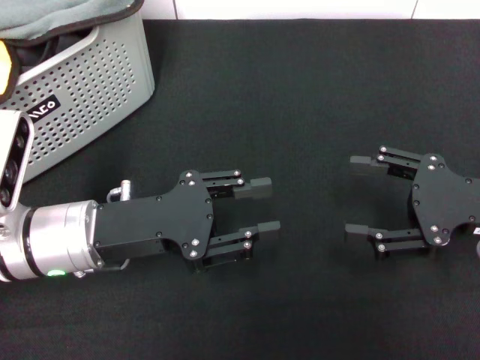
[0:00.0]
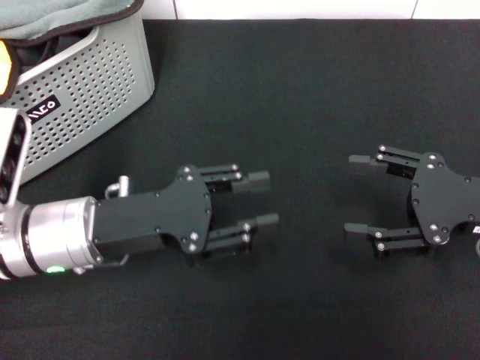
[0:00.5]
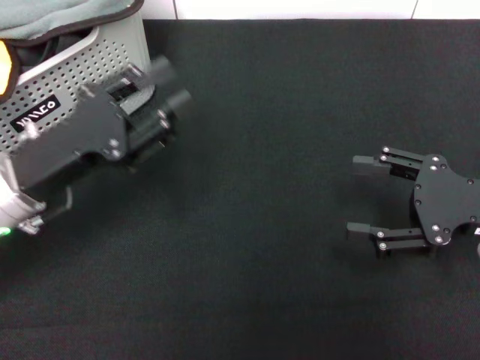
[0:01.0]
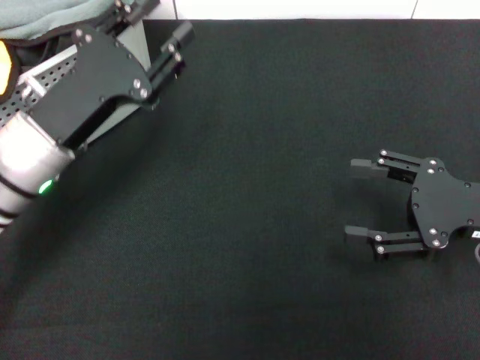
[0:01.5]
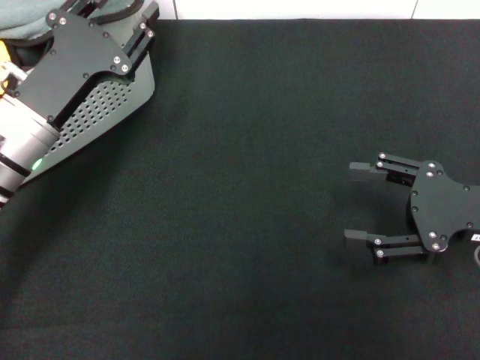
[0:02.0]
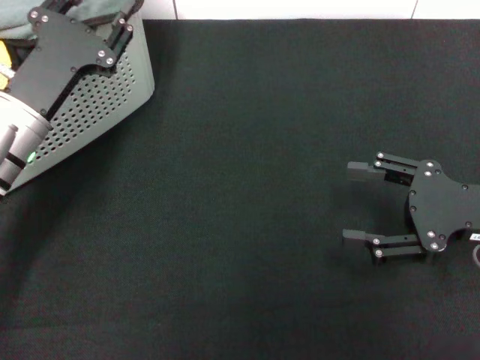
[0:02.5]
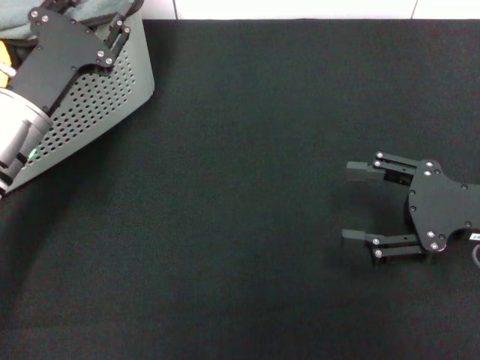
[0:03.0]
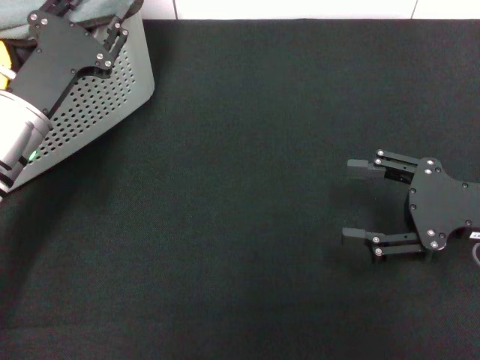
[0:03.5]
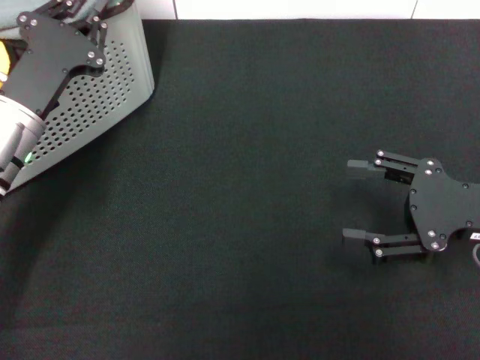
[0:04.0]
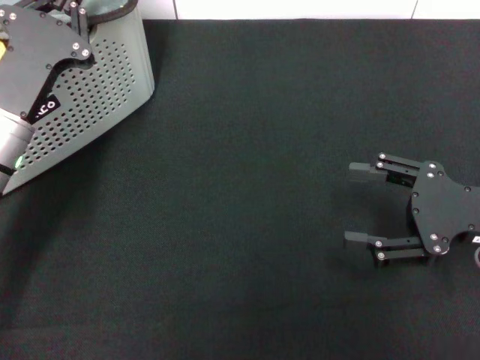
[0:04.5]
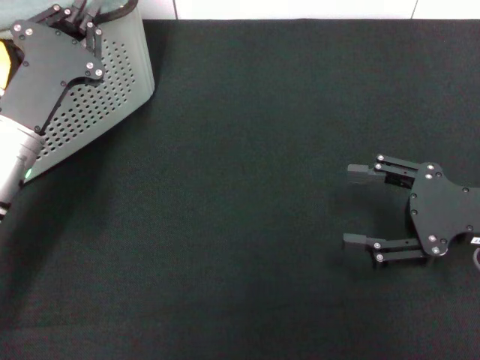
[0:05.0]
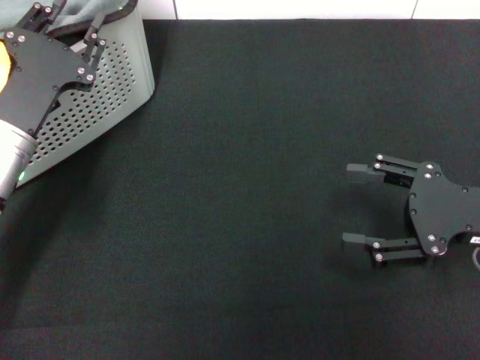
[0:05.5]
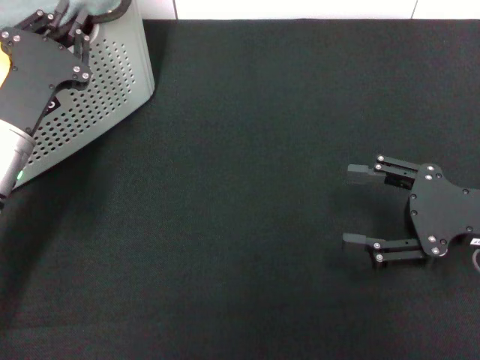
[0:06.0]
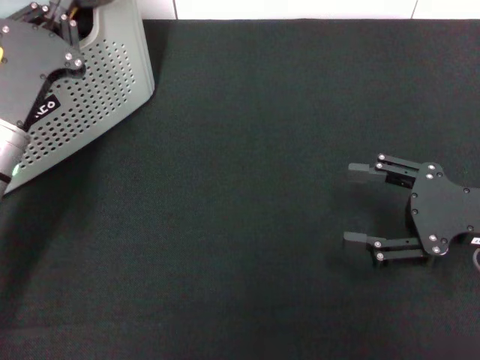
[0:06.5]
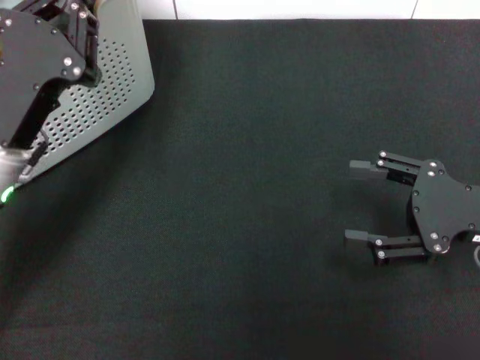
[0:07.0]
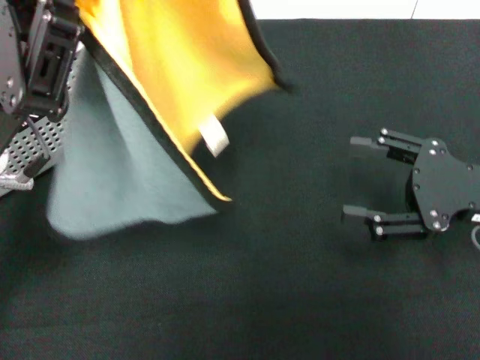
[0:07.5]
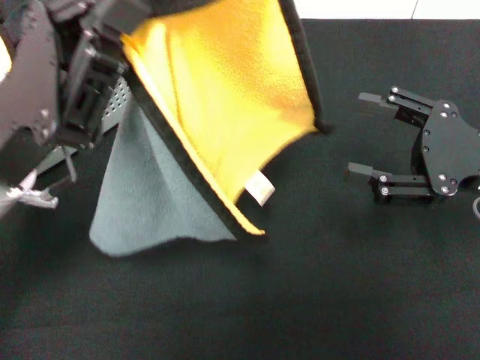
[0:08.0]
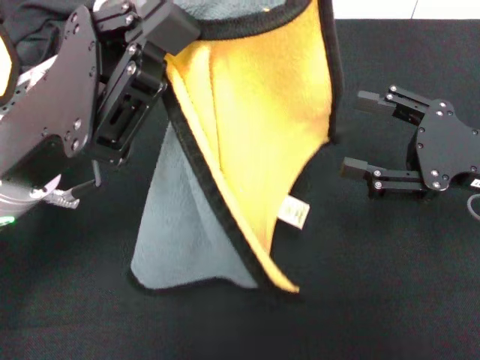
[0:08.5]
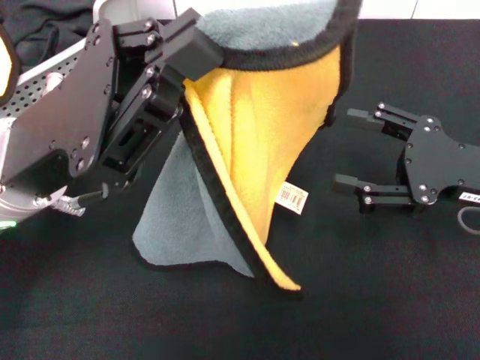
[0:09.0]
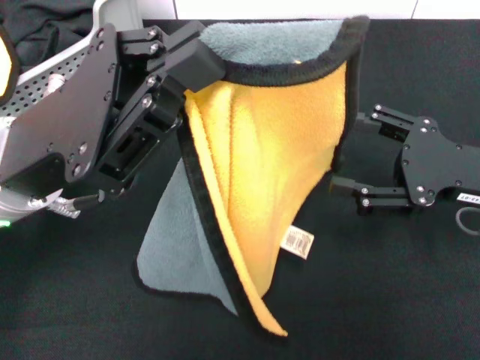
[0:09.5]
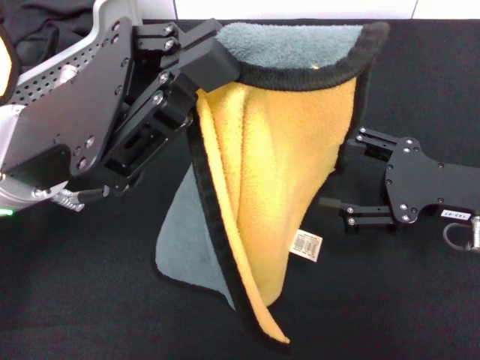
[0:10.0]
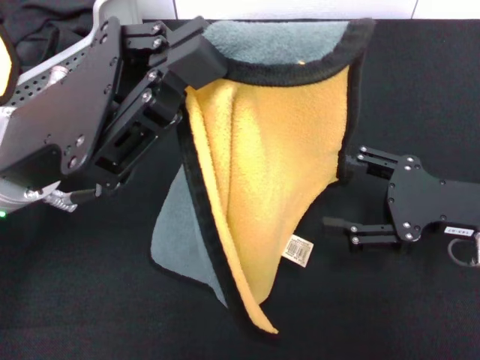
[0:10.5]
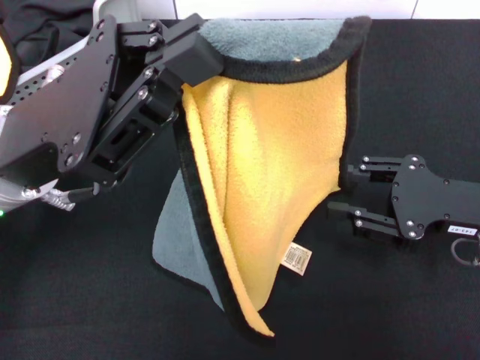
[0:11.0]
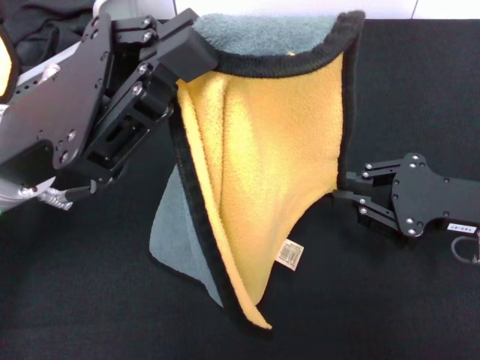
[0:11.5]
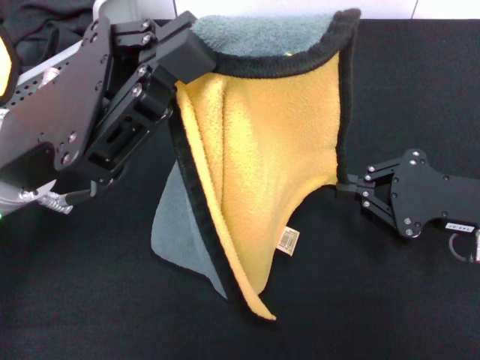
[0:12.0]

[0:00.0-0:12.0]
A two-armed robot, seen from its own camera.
Task of the whole recording: pick up the towel from the storage box and lay it flat on the black tablecloth.
Step, 0:00.0 to 0:04.0: Pick up a towel with the left gripper.
Step, 0:04.5 to 0:12.0: Spread the towel flat with the left gripper.
0:00.0 to 0:02.0: The left gripper shifts approximately 5 cm forward.
0:02.0 to 0:04.0: There are only small adjustments of the grippers.
0:04.0 to 0:06.0: The left gripper closes, then opens again.
0:06.0 to 0:08.0: The left gripper travels upward and backward by roughly 10 cm, and closes.
0:10.0 to 0:12.0: The right gripper closes.

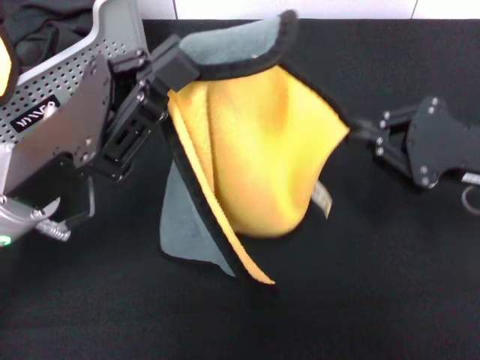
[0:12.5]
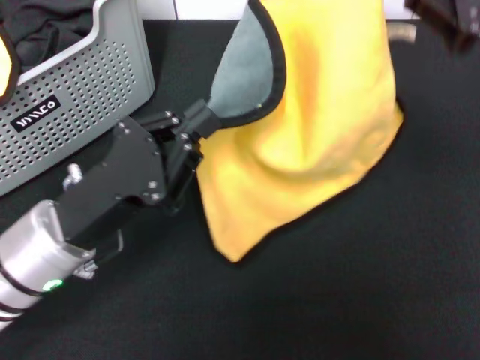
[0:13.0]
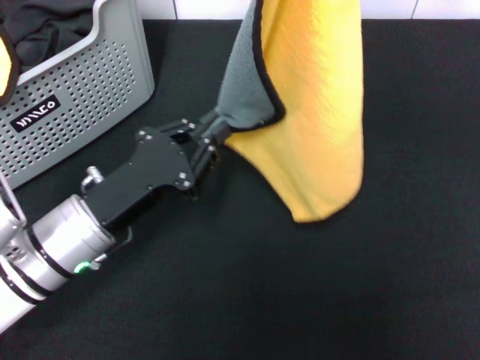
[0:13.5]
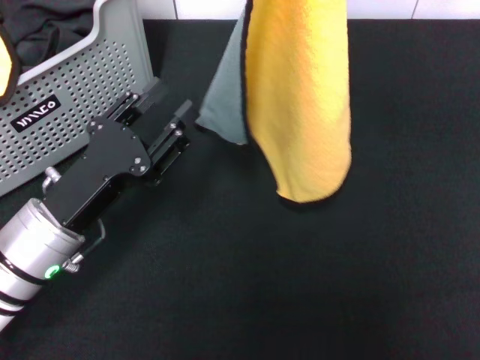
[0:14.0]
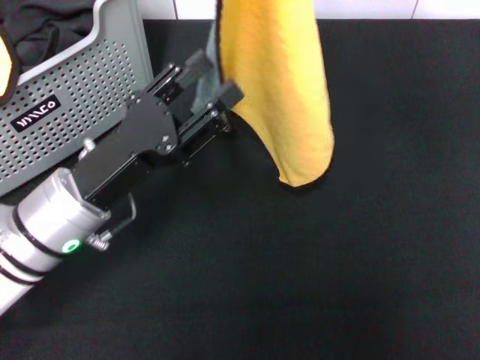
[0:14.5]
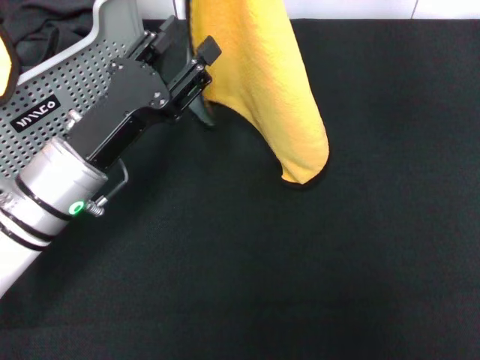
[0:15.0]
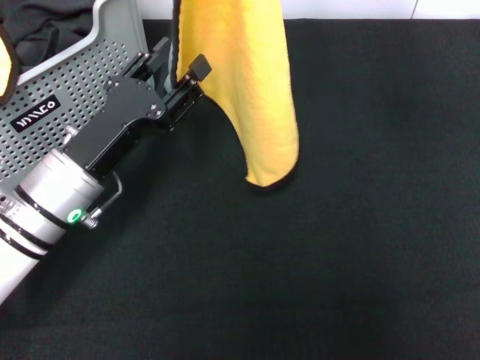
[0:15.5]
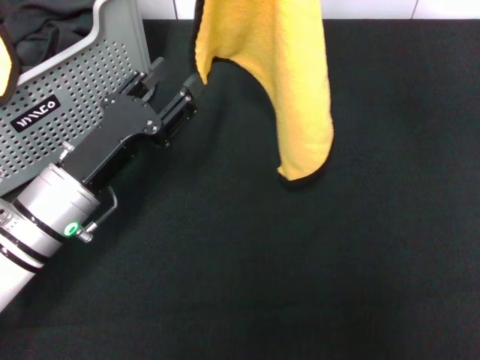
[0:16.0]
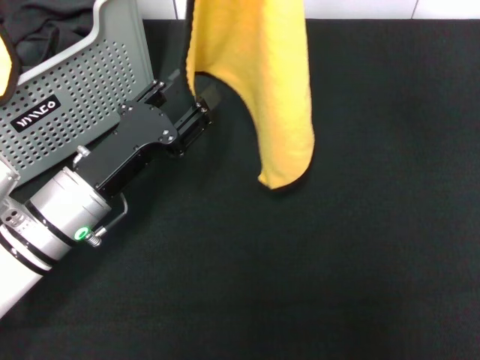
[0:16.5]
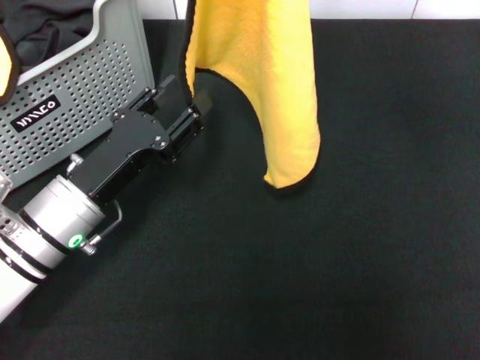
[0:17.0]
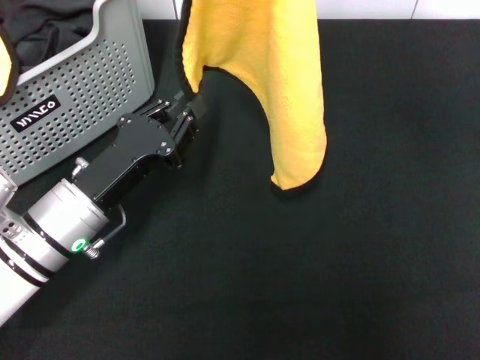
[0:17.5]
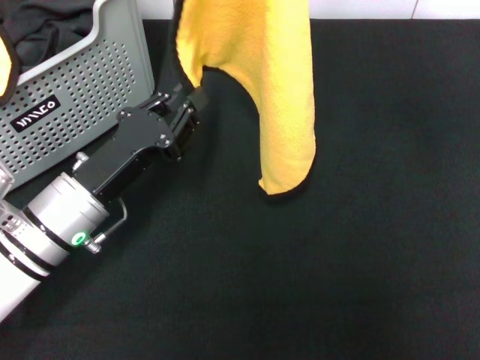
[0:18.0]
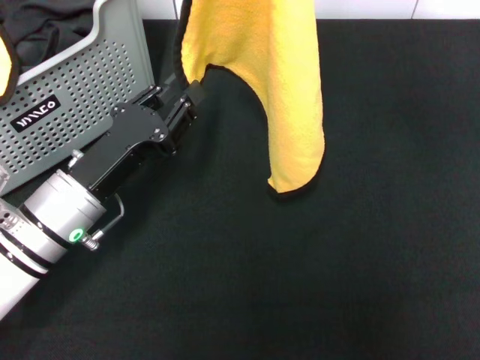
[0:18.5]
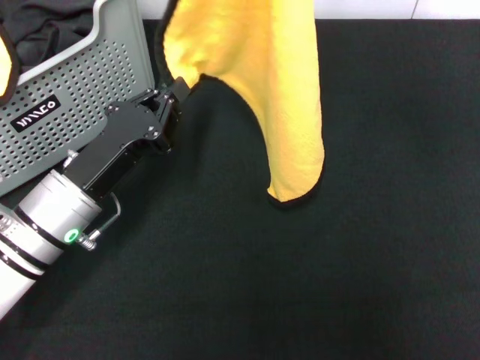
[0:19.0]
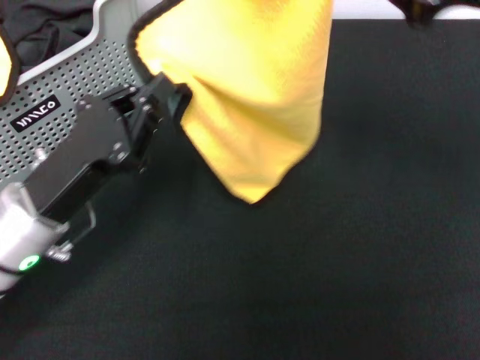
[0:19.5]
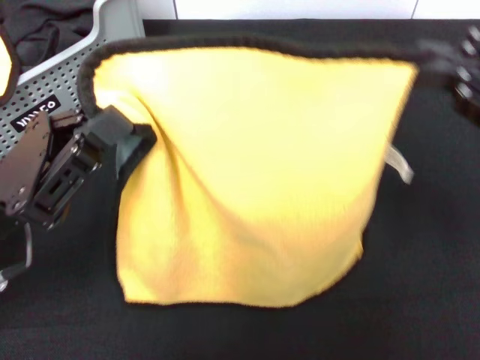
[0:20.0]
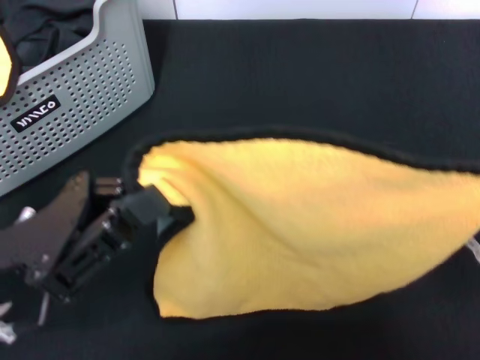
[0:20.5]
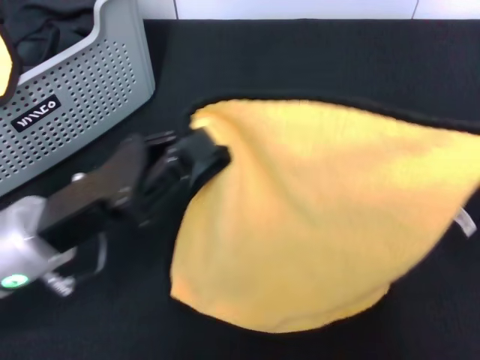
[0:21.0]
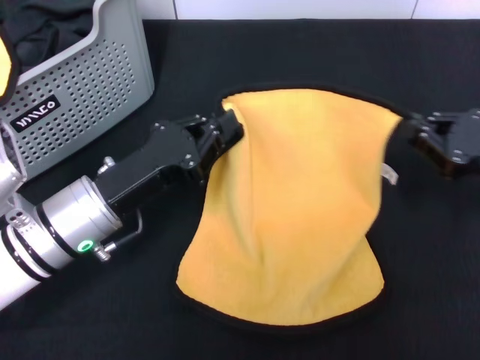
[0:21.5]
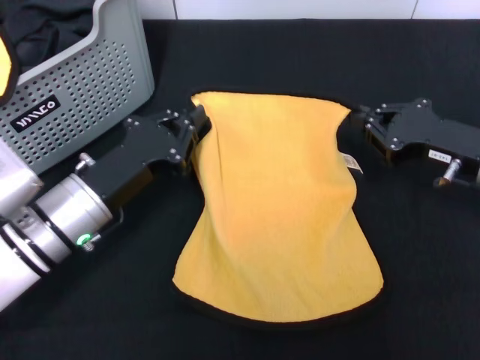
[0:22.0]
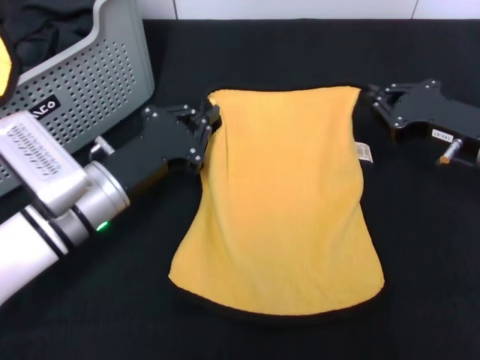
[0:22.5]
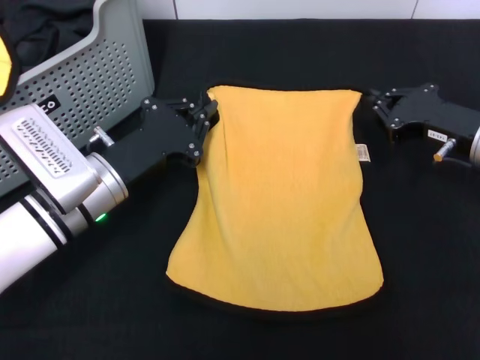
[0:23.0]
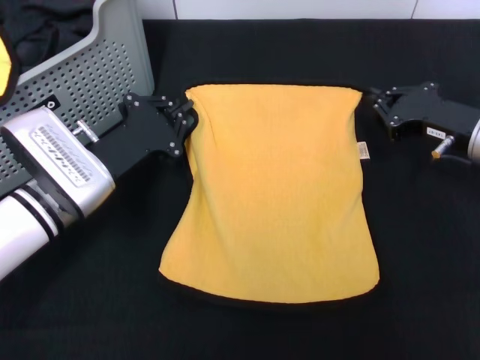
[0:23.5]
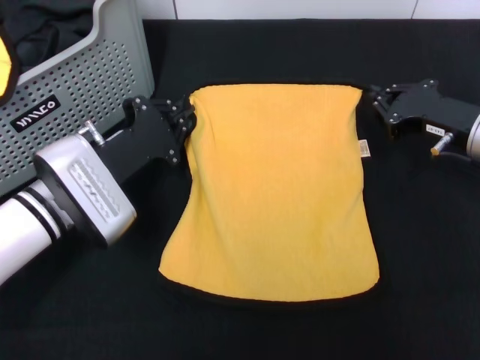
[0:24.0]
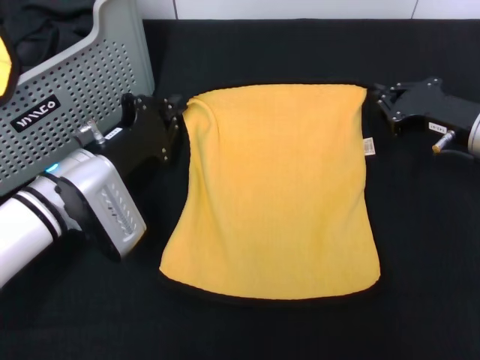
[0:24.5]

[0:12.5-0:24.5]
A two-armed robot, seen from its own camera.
Task of the whole recording: pick up the towel from the storage box and lay it flat on the black tablecloth.
0:12.5 to 0:14.5: The left gripper moves downward, roughly 5 cm, and opens up; the right gripper goes roughly 20 cm upward, forward and to the left.
0:14.5 to 0:16.5: The grippers make only small movements.
0:16.5 to 0:18.5: The left gripper closes.
0:18.5 to 0:20.5: The right gripper travels backward and to the right by approximately 25 cm, while the left gripper is displaced backward and upward by about 10 cm, and closes its fingers.
0:20.5 to 0:22.5: The left gripper shifts about 10 cm forward and downward, while the right gripper heads forward and downward, covering approximately 25 cm.

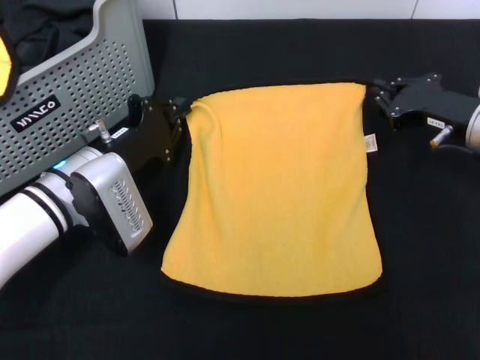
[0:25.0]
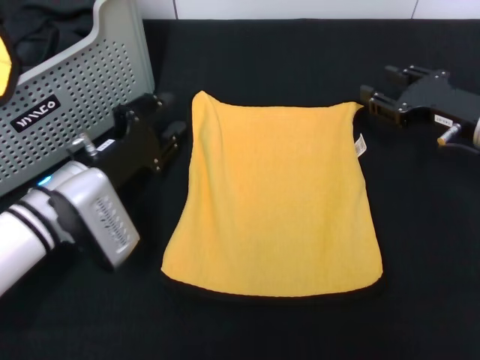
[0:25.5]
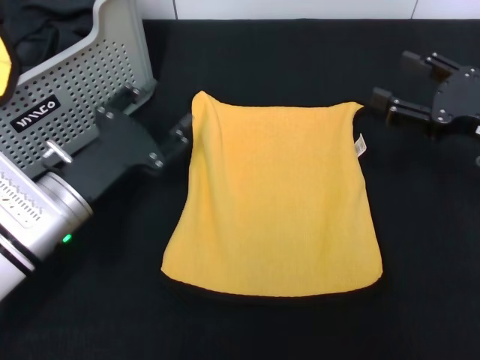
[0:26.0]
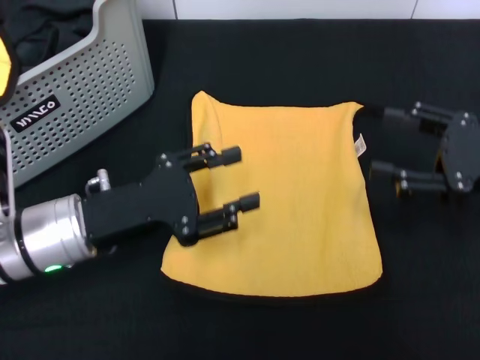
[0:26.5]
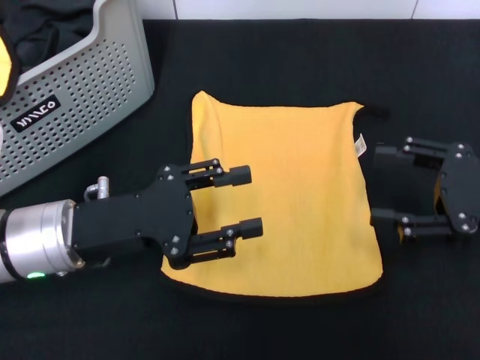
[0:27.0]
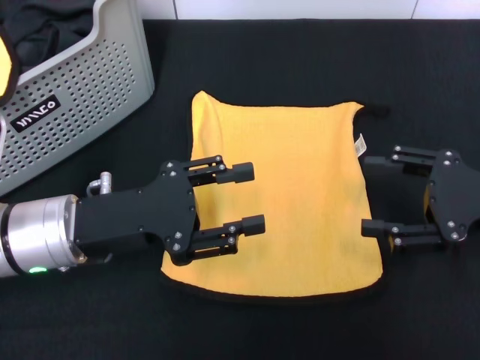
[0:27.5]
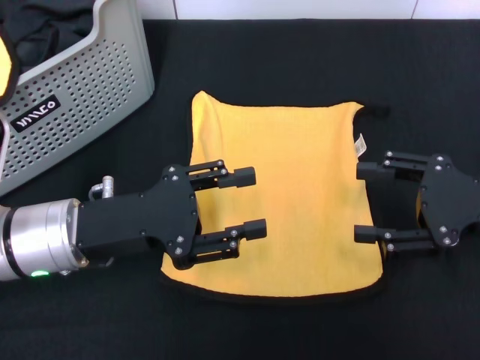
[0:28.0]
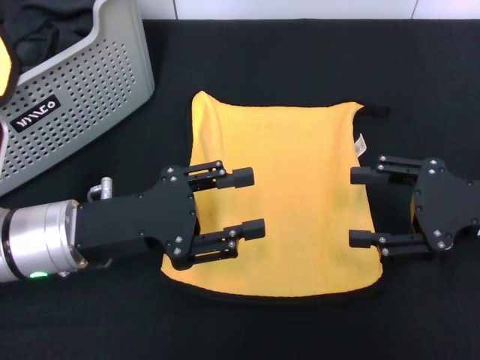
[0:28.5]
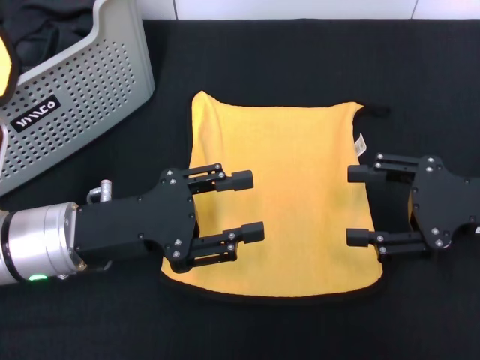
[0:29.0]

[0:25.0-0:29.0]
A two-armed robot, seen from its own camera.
Task of the whole recording: pick up the towel from the storage box and lay it flat on the black tablecloth.
0:25.0 to 0:27.0: The left gripper travels backward and upward by about 10 cm, and opens up; the right gripper heads backward, covering approximately 10 cm, and opens.
0:27.0 to 0:29.0: The grippers move only a little.
